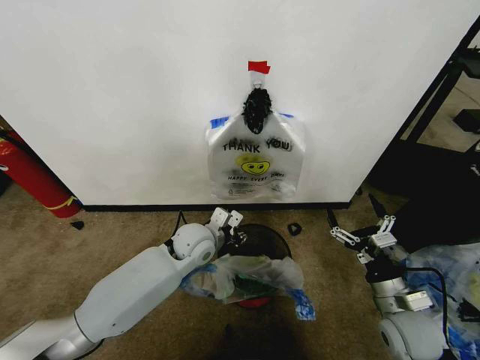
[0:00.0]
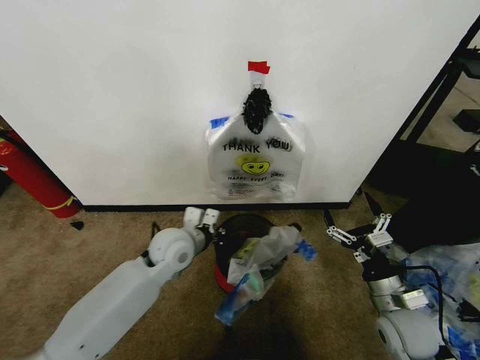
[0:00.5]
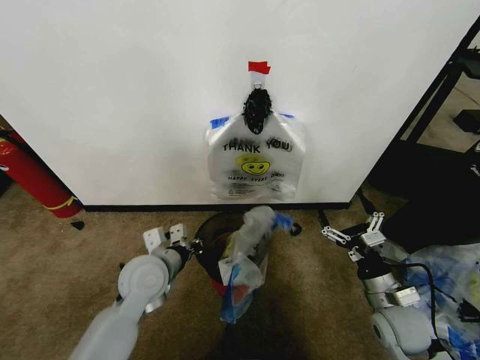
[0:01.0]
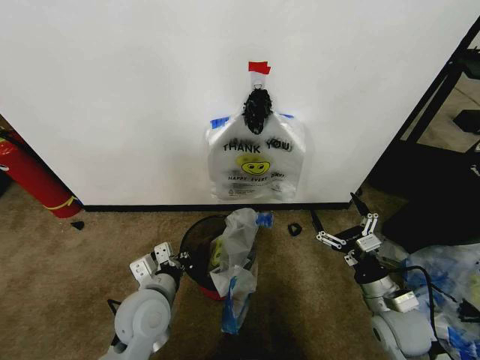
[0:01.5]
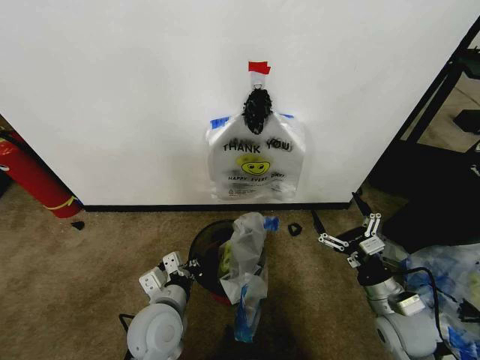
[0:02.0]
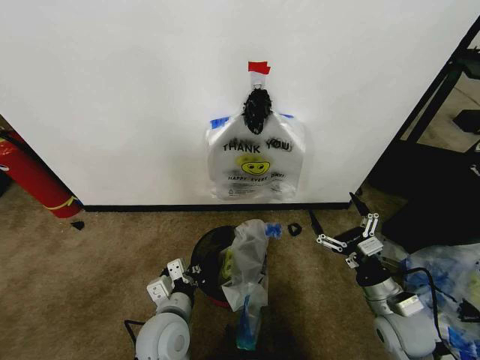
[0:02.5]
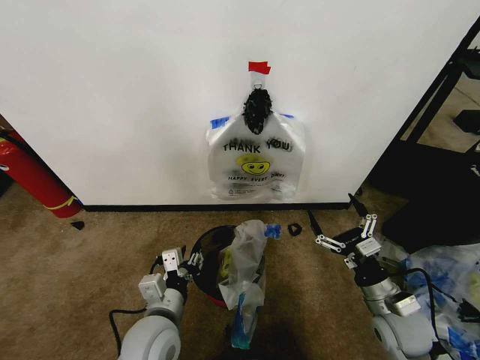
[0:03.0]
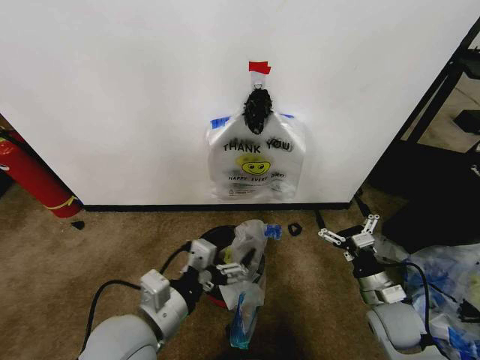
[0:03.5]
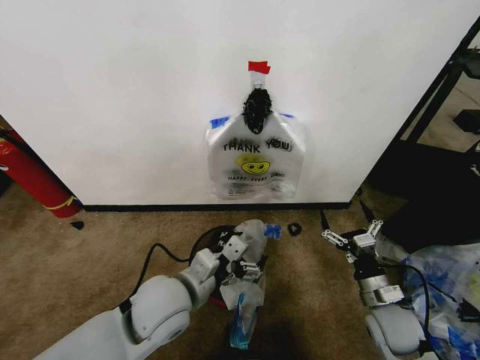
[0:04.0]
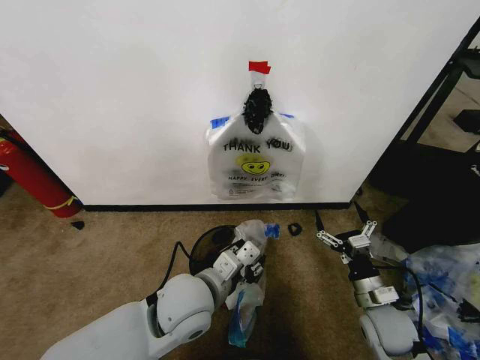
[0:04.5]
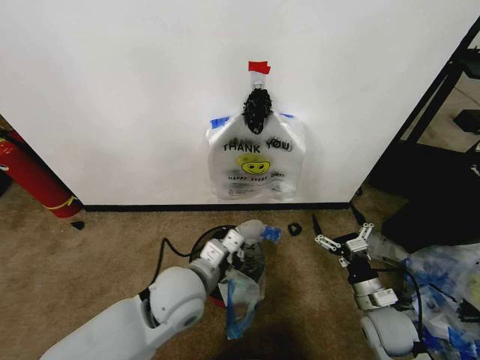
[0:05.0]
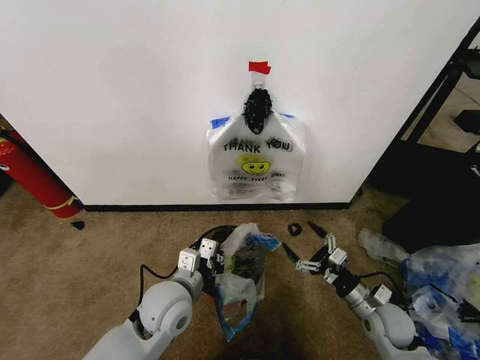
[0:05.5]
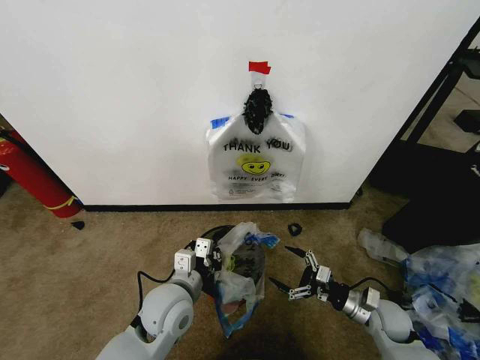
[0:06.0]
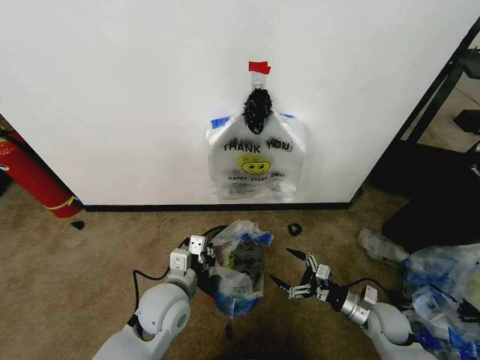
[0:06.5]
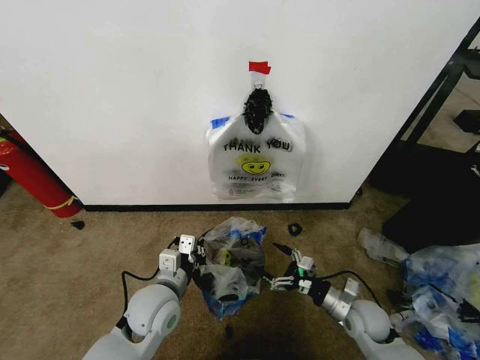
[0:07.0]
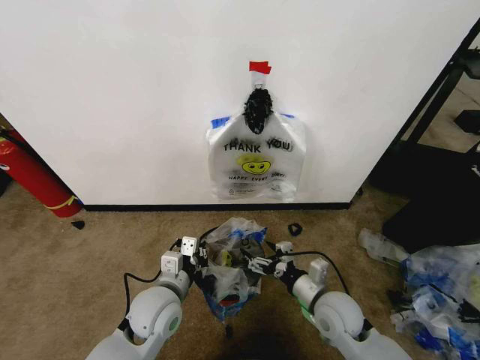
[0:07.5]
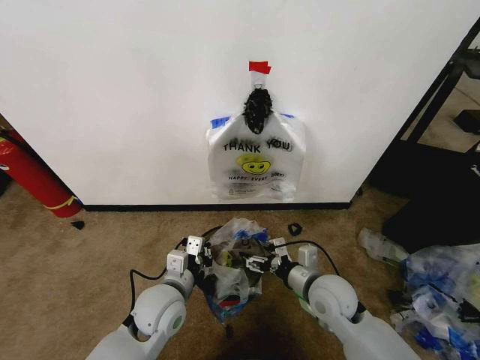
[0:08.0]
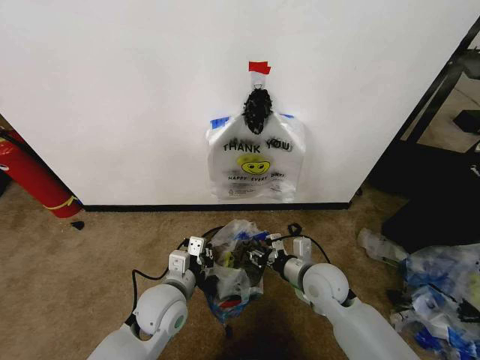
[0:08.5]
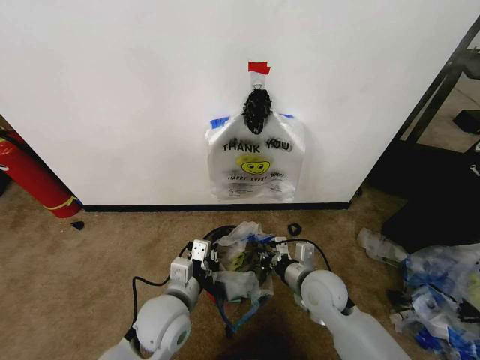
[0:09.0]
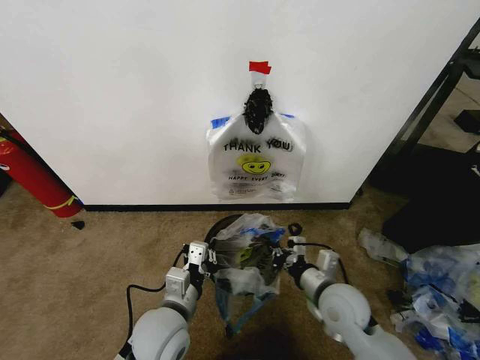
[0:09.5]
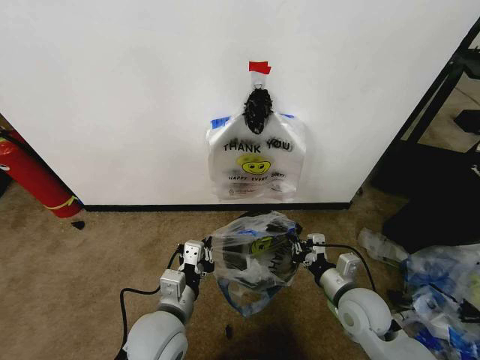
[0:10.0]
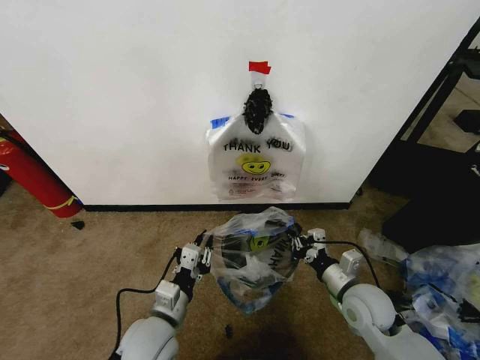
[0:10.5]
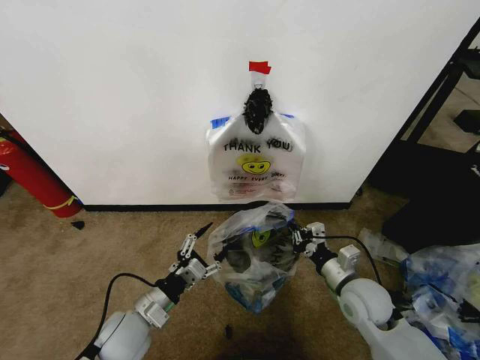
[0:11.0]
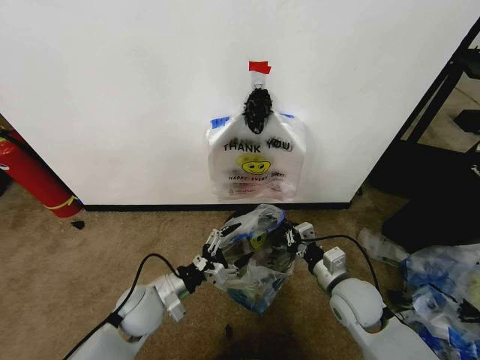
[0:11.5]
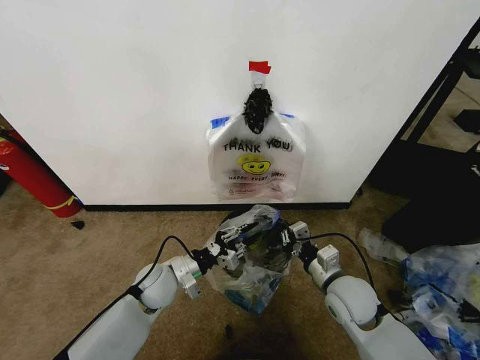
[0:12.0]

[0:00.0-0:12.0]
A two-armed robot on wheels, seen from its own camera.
Task of the whole recording: Pick up the garbage bag from the wall and place it over the trash bin.
0.0 to 2.0 s: The left gripper goes roughly 20 cm backward.
2.0 to 4.0 s: The left gripper goes roughly 5 cm upward, and opens.
4.0 to 6.0 s: Both grippers move downward, approximately 5 cm. The left gripper closes its fingers.
6.0 to 8.0 s: The right gripper is displaced to the left and upward by about 20 cm.
8.0 to 10.0 s: The left gripper goes some 5 cm backward. Meanwhile the right gripper moves to the right, roughly 5 cm, and closes up.
10.0 to 12.0 s: The left gripper goes some 15 cm forward, downward and to the left, and opens, then closes again.

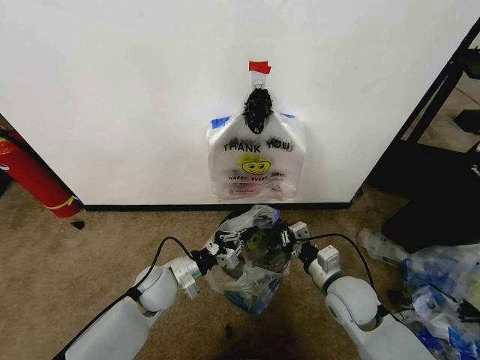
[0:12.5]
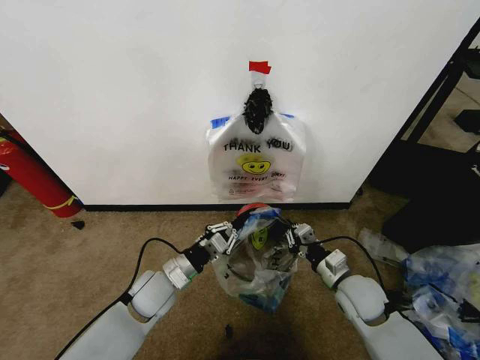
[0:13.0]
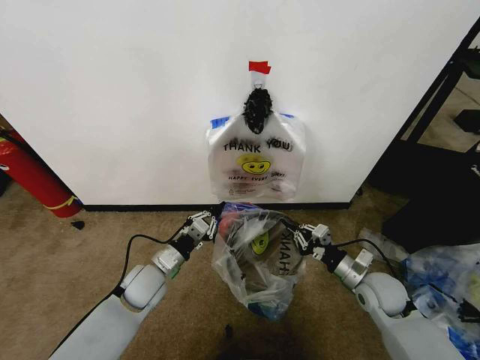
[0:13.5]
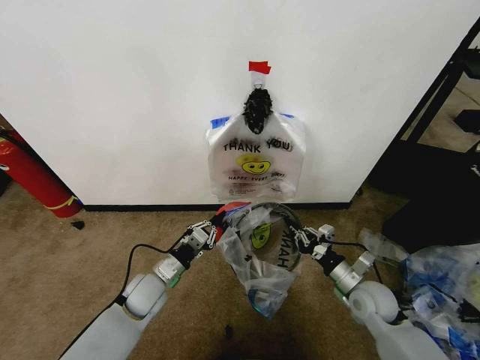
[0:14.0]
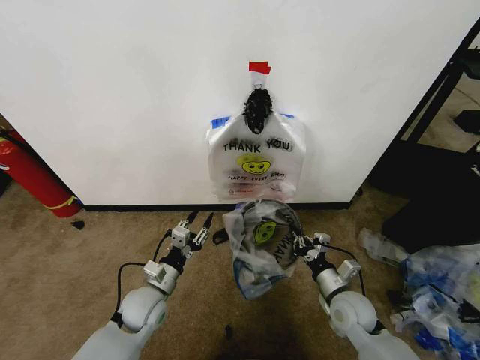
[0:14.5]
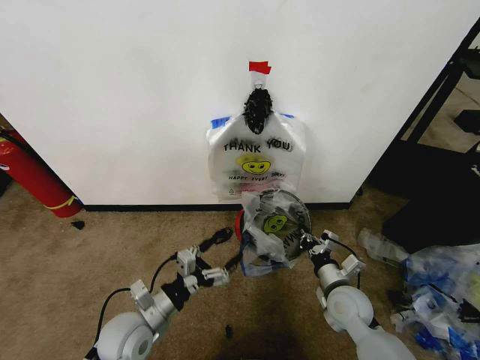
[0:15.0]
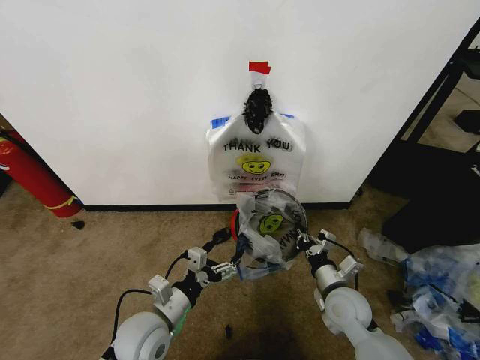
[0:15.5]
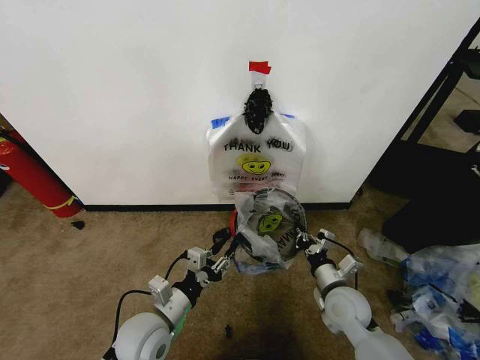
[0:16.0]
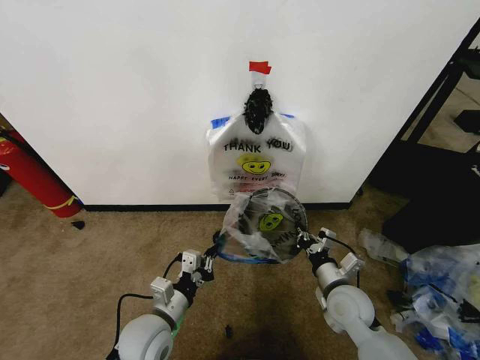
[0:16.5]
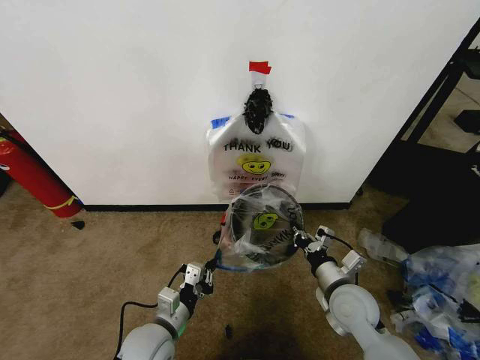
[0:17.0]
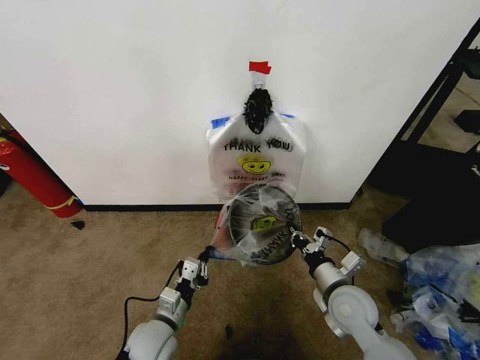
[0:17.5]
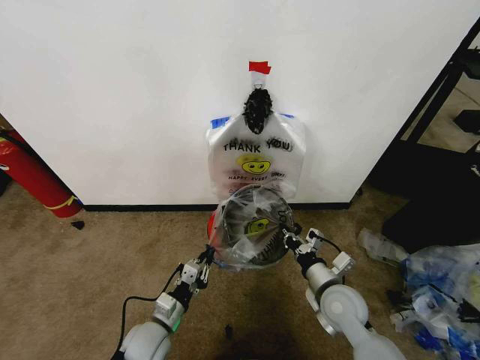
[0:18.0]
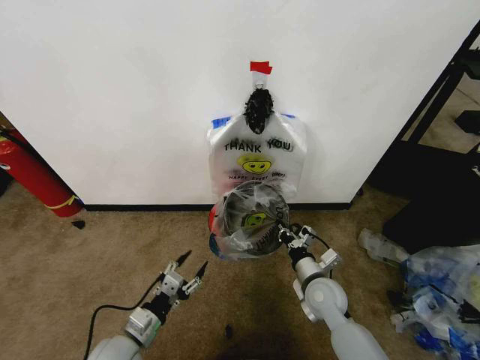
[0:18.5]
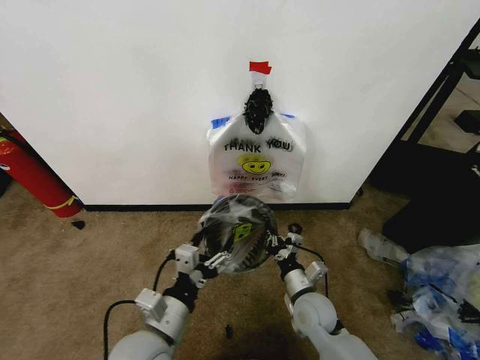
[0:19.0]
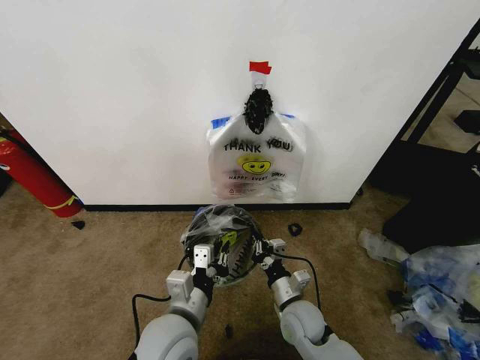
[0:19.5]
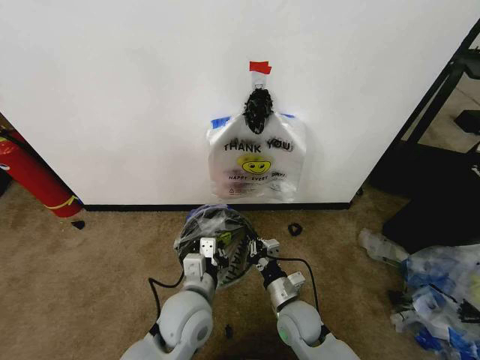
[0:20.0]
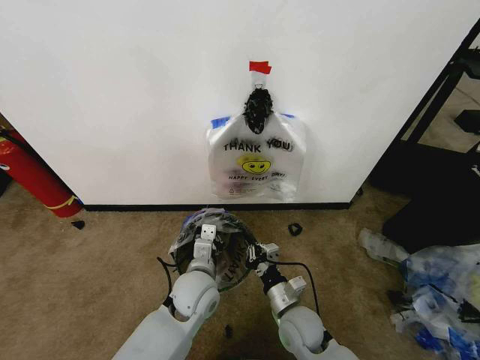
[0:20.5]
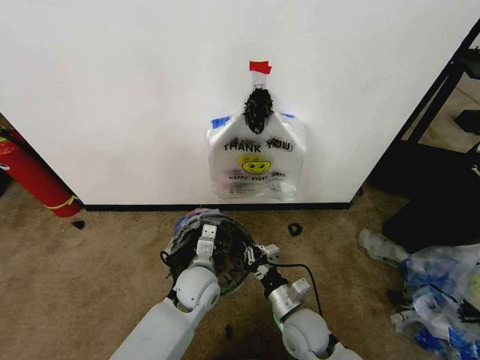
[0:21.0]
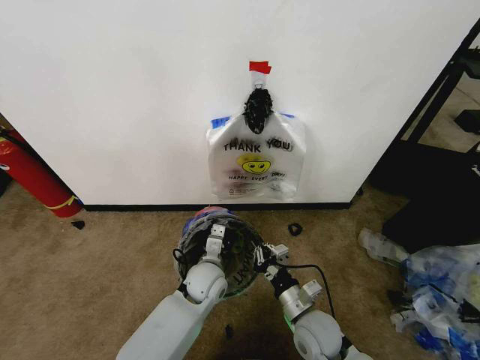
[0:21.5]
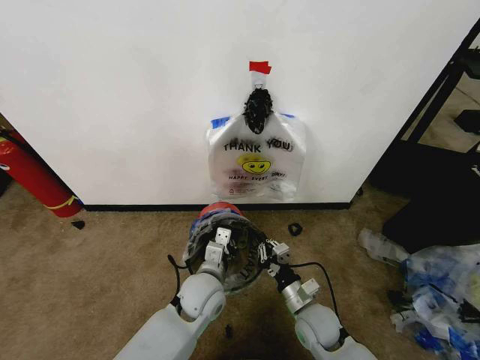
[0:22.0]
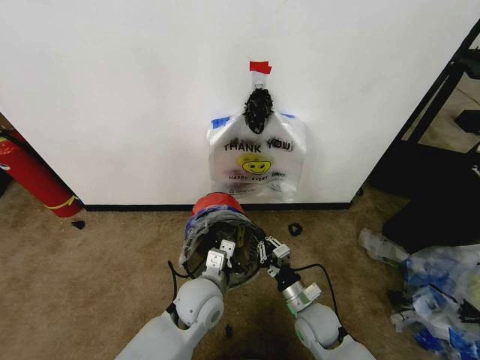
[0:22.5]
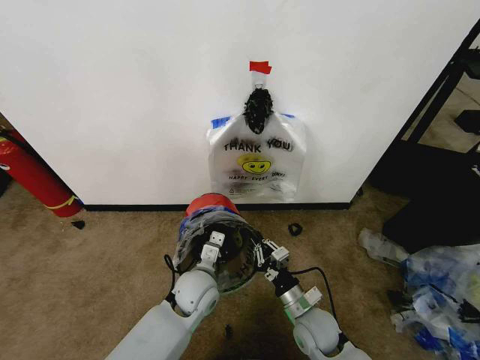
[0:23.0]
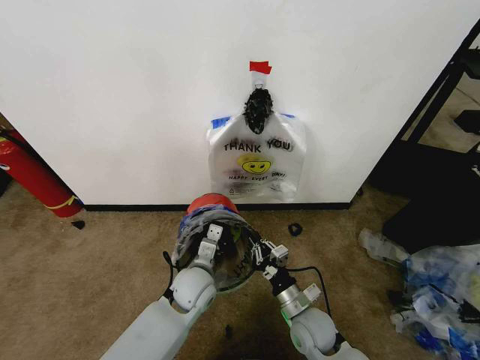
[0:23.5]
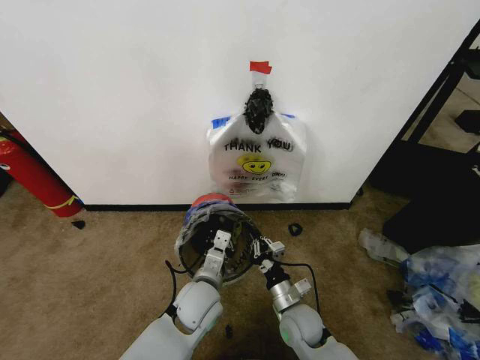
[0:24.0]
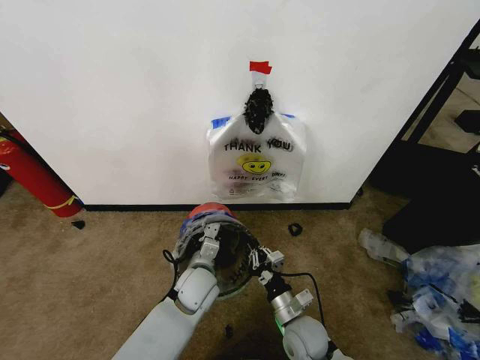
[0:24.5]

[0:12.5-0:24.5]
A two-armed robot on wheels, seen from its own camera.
Task of the whole recording: Pick up the garbage bag from the wall and place it over the trash bin.
12.5 to 14.5 s: The right gripper moves downward, roughly 5 cm, and reaches roughly 10 cm to the right, then returns, while the left gripper ends up approximately 5 cm from where it was, and opens its fingers.
14.5 to 16.5 s: The left gripper is displaced backward by about 10 cm, and closes its fingers.
16.5 to 18.5 s: The right gripper ends up about 5 cm from where it was. Meanwhile the left gripper travels to the left by about 5 cm, and opens up.
18.5 to 20.5 s: The right gripper travels to the left and backward by some 10 cm; the left gripper is displaced to the right, forward and upward by about 20 cm, and closes up.
20.5 to 22.5 s: The right gripper changes place by approximately 5 cm.
22.5 to 24.5 s: The left gripper goes forward and backward, some 5 cm each way, reversing 2 times.

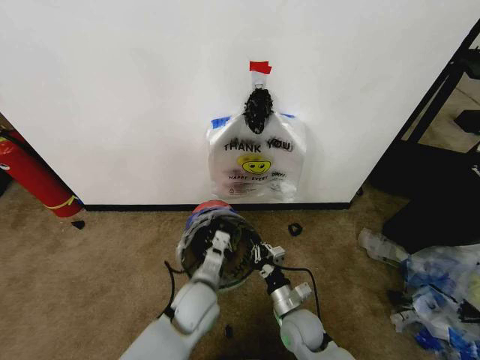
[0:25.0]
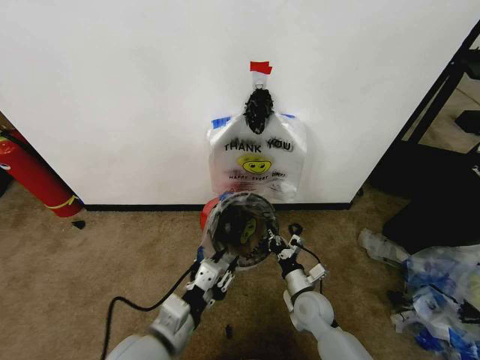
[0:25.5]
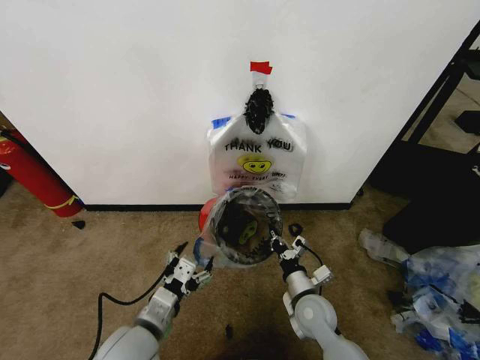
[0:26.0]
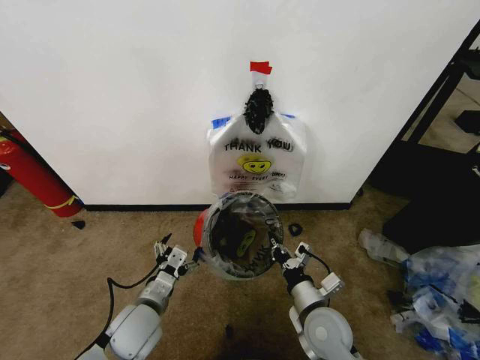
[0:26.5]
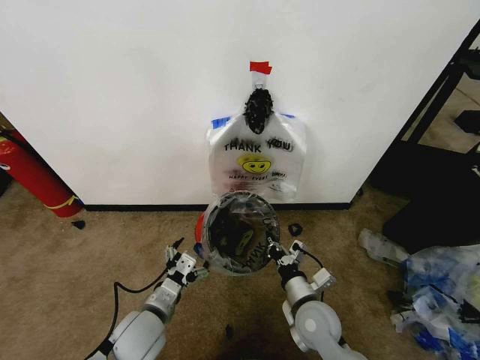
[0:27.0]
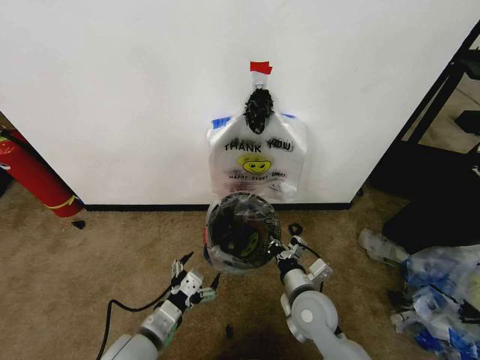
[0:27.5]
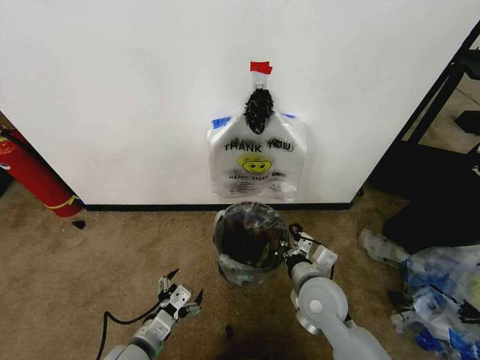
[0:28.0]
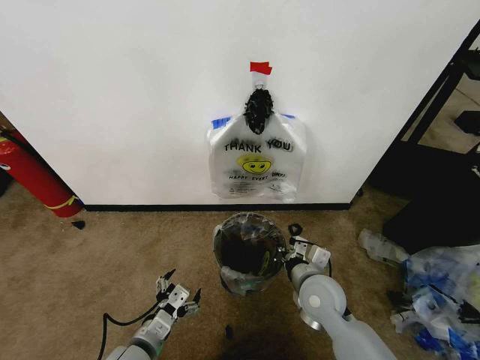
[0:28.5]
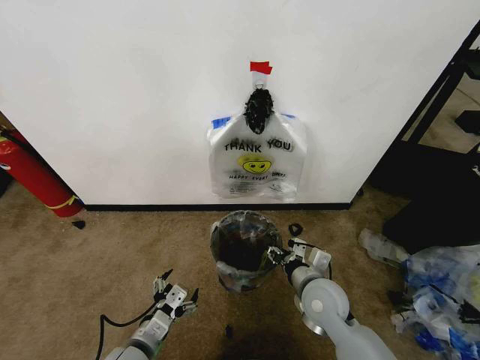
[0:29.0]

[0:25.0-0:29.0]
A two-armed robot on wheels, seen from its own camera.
Task of the whole recording: Pick up the garbage bag from the wall and place it over the trash bin.
25.0 to 27.0 s: The left gripper moves to the left and backward, some 10 cm, and opens. Meanwhile the right gripper travels upward by roughly 5 cm.
27.0 to 29.0 s: The left gripper moves backward, roughly 5 cm; the right gripper moves approximately 5 cm, and opens.
